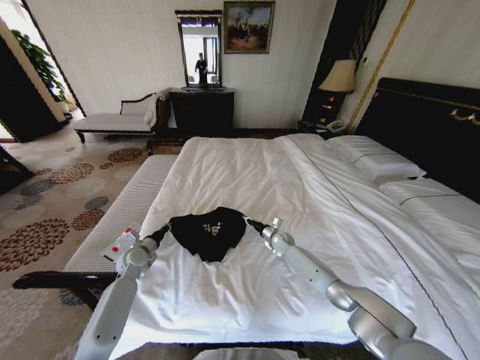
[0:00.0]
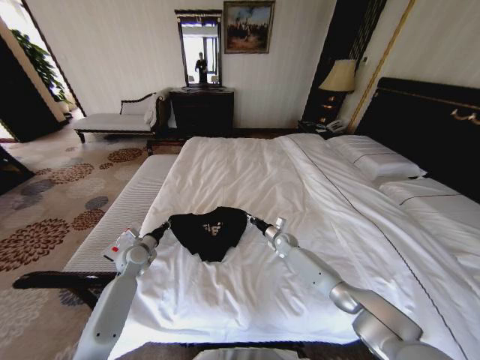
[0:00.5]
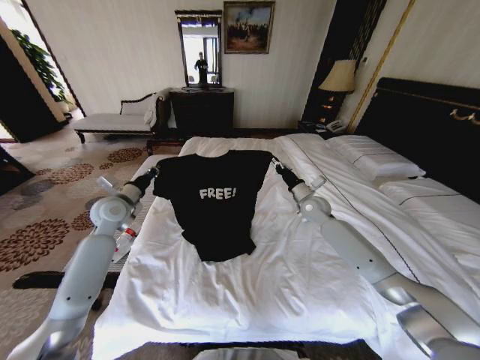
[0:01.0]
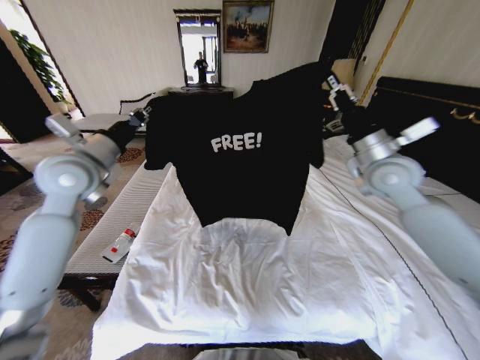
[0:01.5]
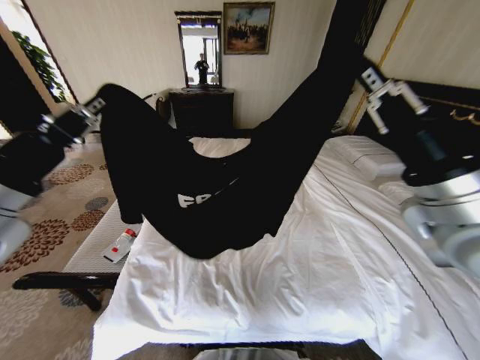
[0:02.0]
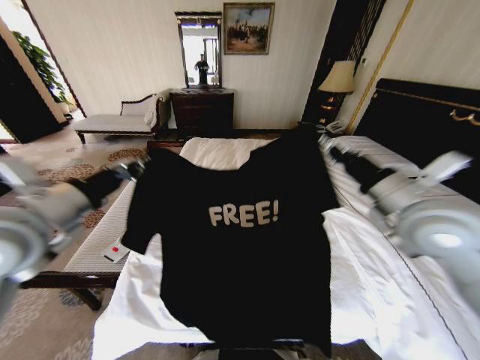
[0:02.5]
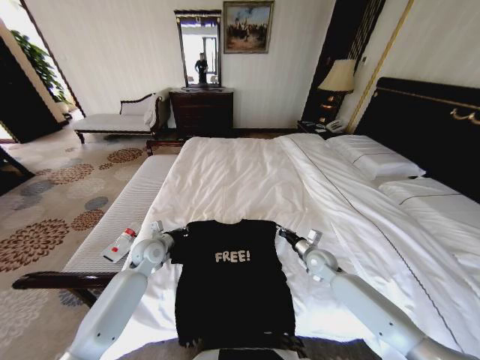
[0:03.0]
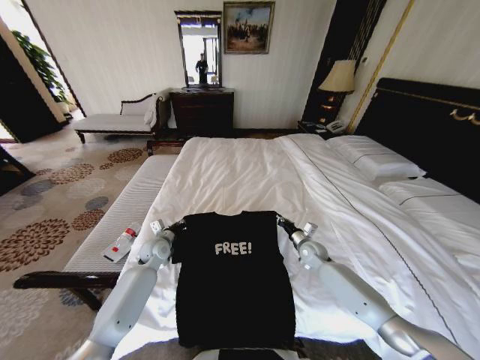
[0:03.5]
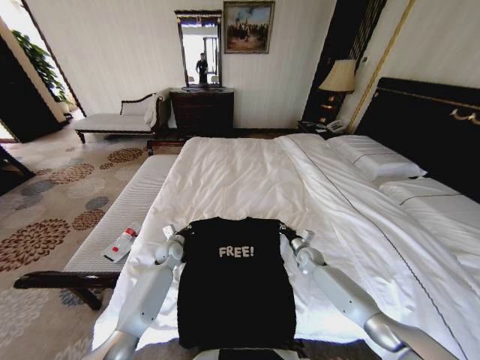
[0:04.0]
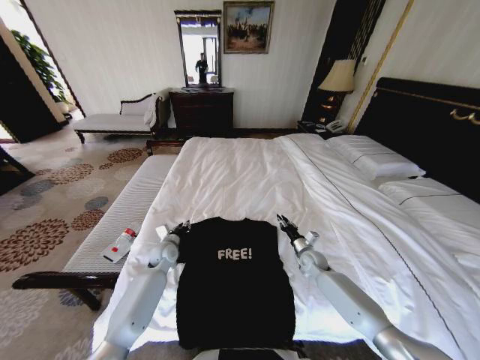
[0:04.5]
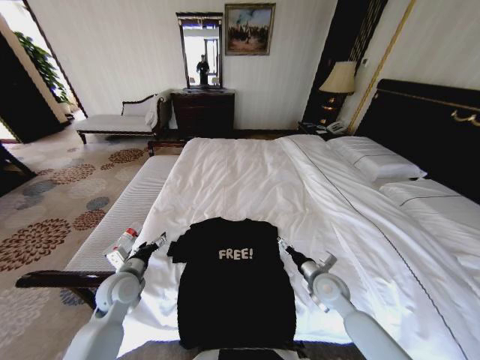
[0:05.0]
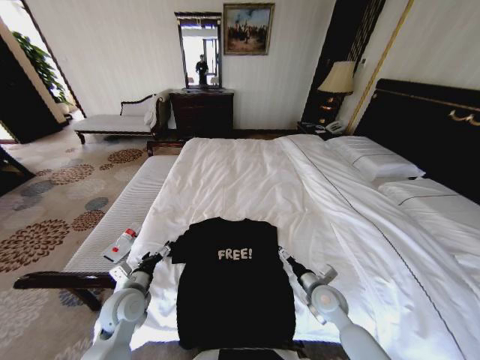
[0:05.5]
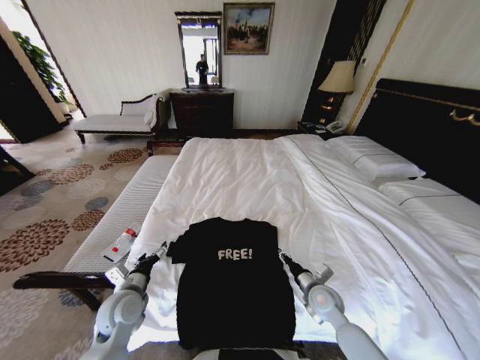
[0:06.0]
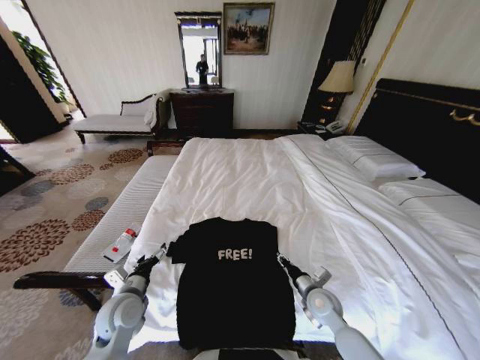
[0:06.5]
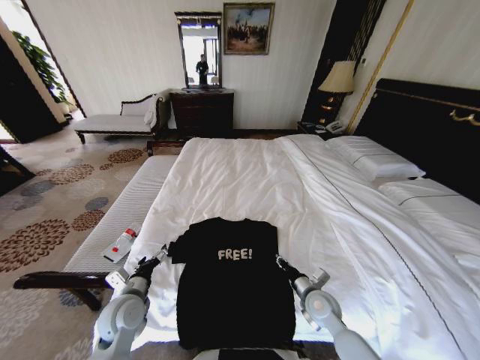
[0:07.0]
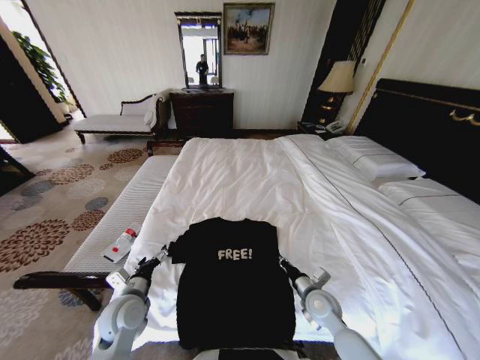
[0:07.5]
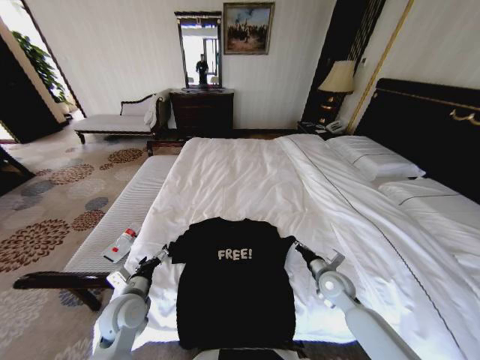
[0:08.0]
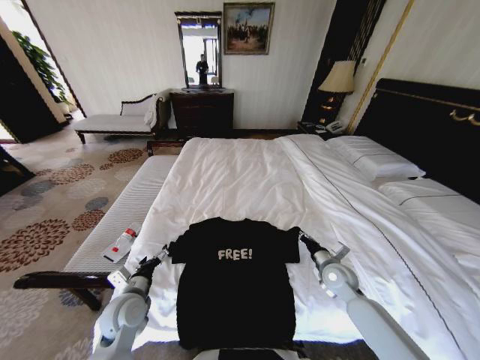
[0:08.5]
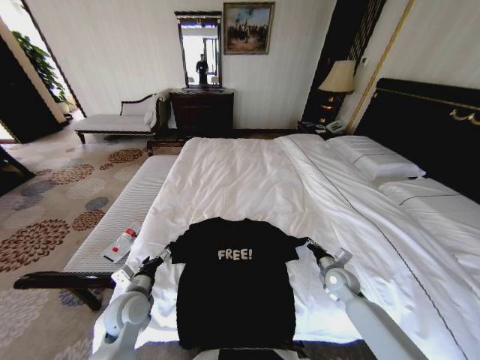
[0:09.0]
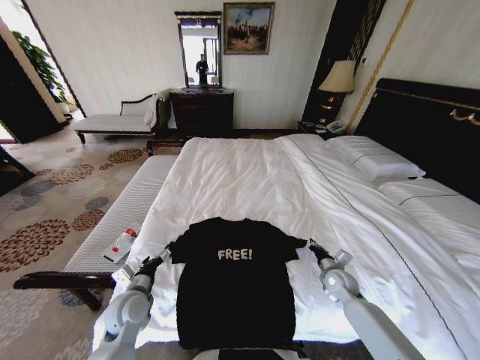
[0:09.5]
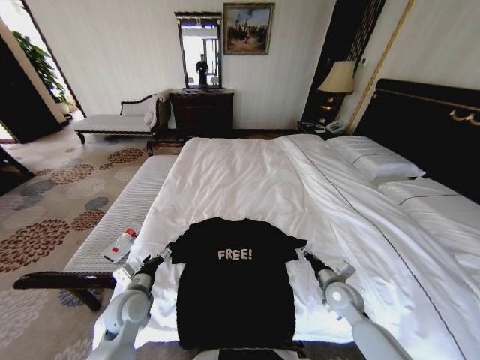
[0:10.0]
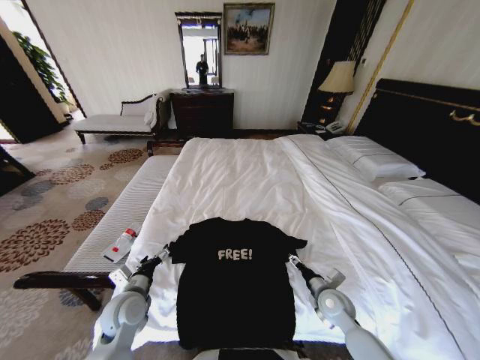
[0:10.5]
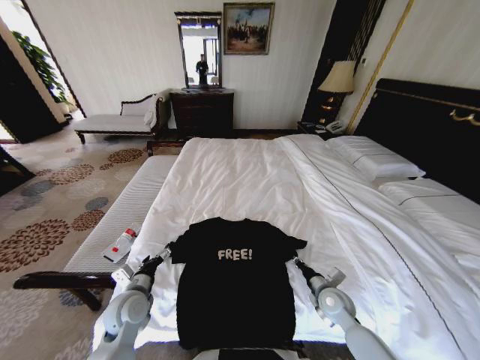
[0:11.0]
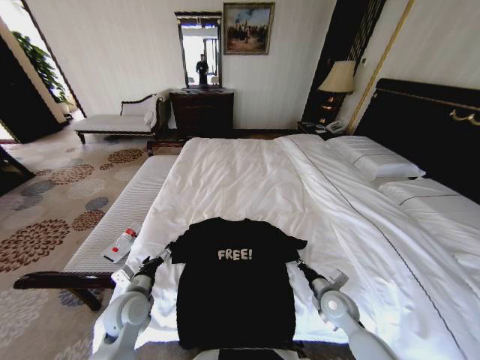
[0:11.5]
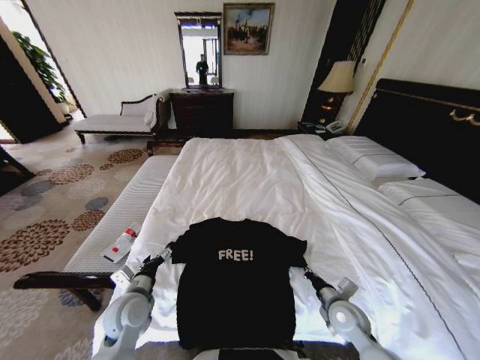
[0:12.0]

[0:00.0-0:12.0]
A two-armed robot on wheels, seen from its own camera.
Task of the whole recording: Fold the clothes on the bed.
0:00.0 to 0:02.0: Both grippers travel together upward and backward, about 50 cm.
0:02.0 to 0:04.0: Both grippers move downward and forward, approximately 50 cm.
0:04.0 to 0:06.0: The left gripper moves backward and upward, some 20 cm, and opens. Meanwhile the right gripper moves backward, about 15 cm, and opens its fingers.
0:06.0 to 0:08.0: The right gripper ends up roughly 5 cm from where it was, and closes.
0:10.0 to 0:12.0: The right gripper travels backward by some 5 cm, and opens and closes again.

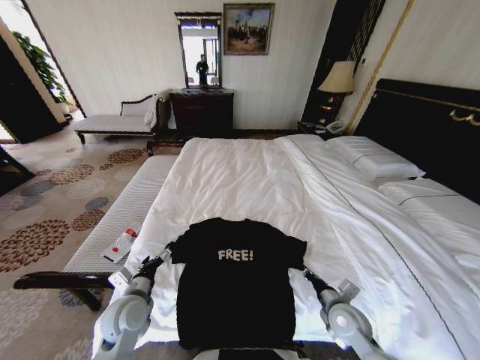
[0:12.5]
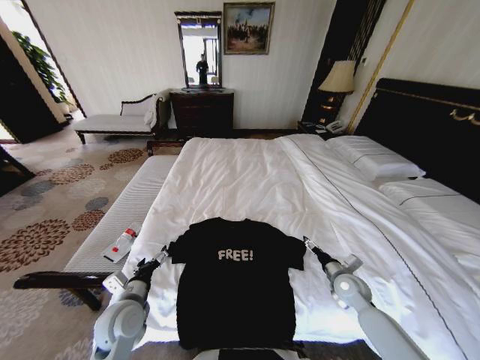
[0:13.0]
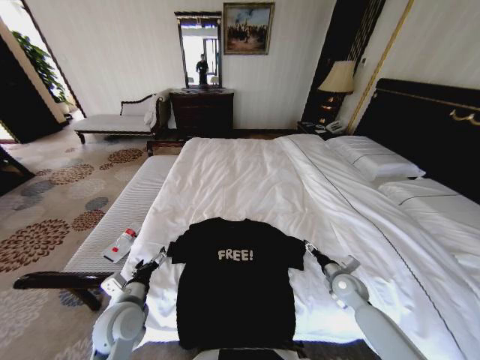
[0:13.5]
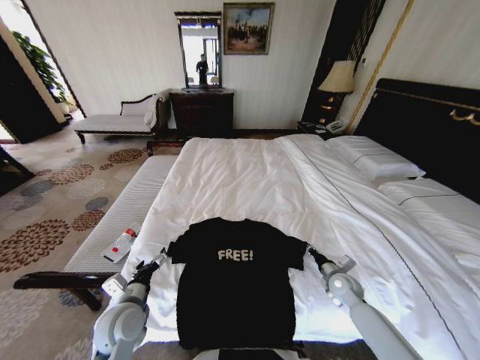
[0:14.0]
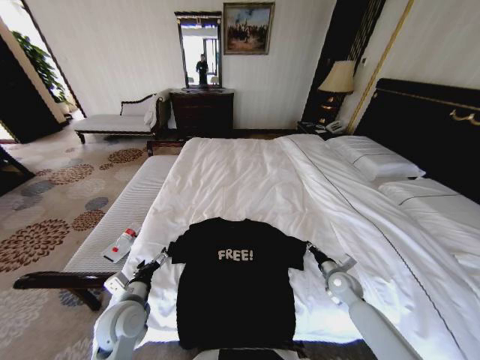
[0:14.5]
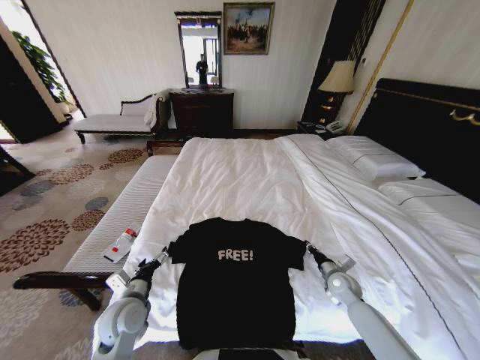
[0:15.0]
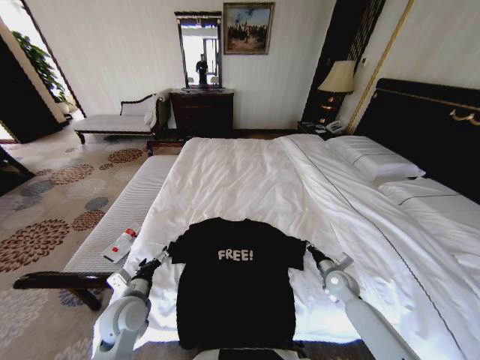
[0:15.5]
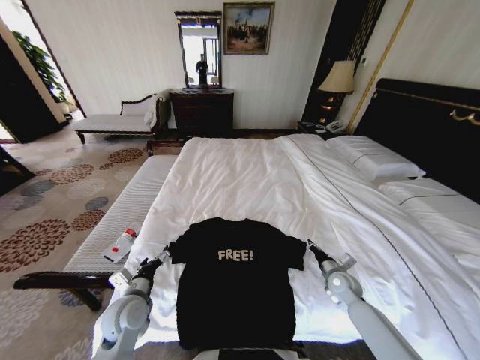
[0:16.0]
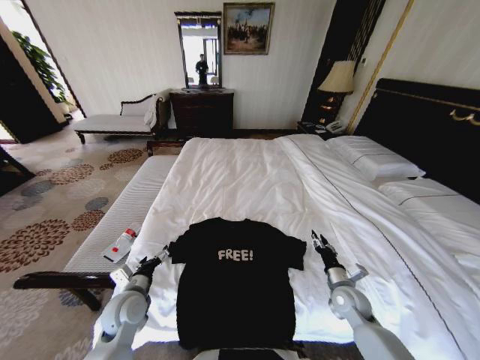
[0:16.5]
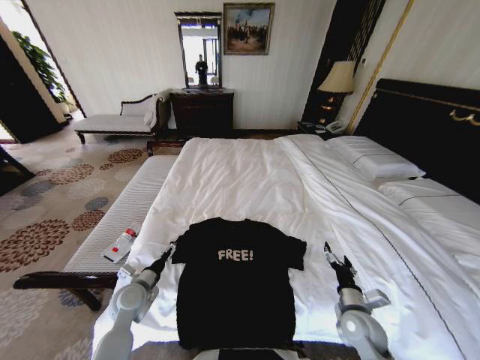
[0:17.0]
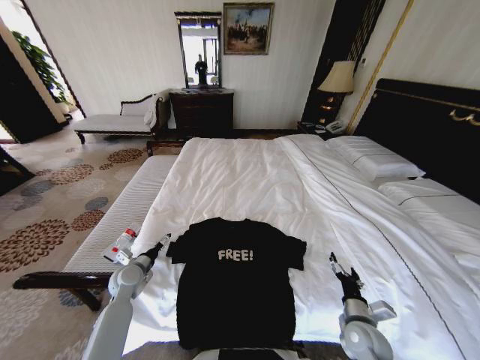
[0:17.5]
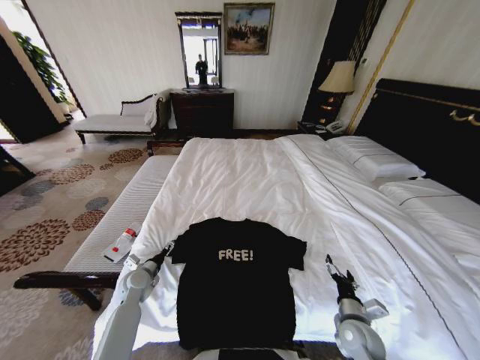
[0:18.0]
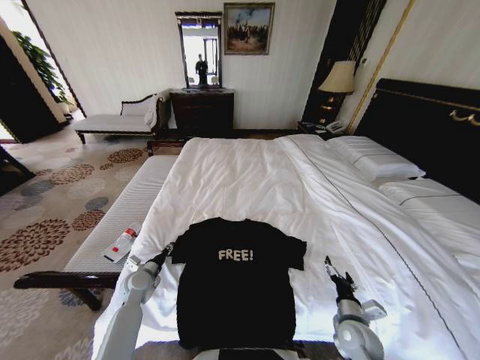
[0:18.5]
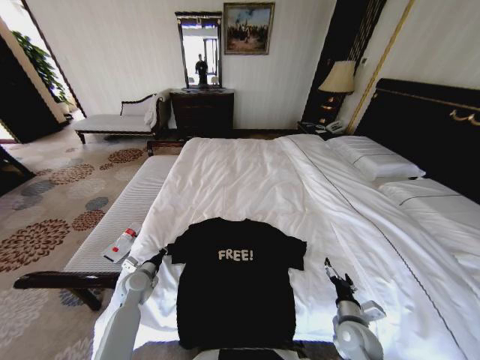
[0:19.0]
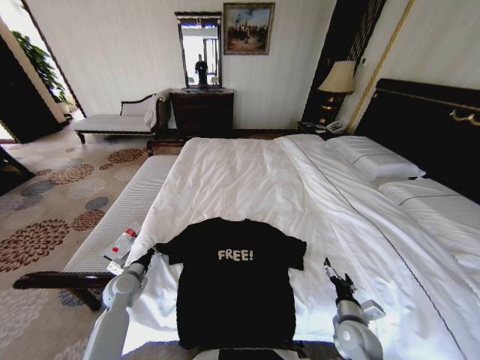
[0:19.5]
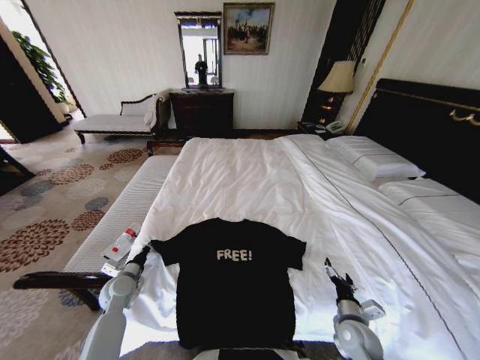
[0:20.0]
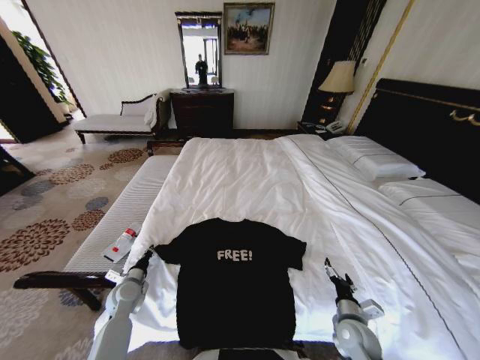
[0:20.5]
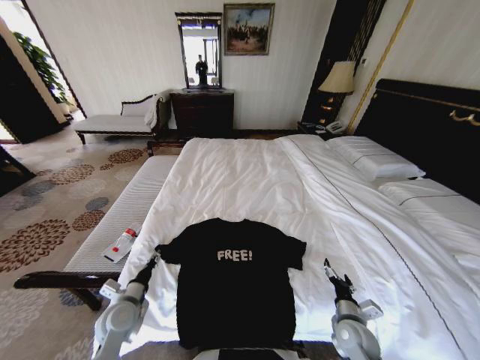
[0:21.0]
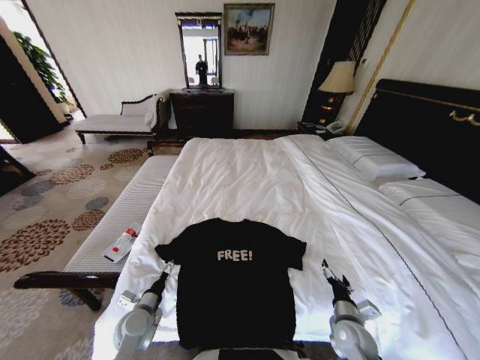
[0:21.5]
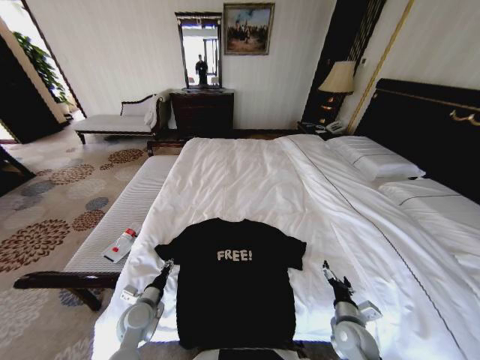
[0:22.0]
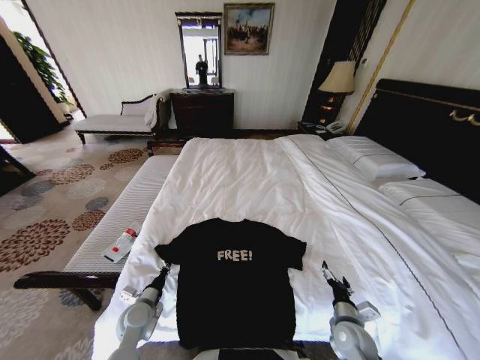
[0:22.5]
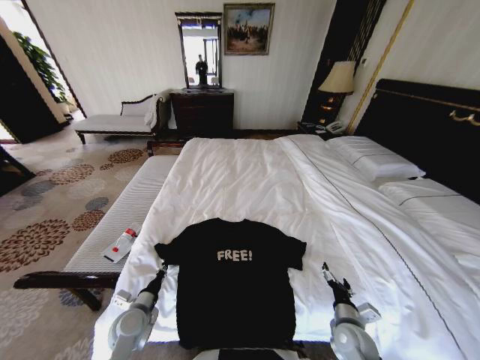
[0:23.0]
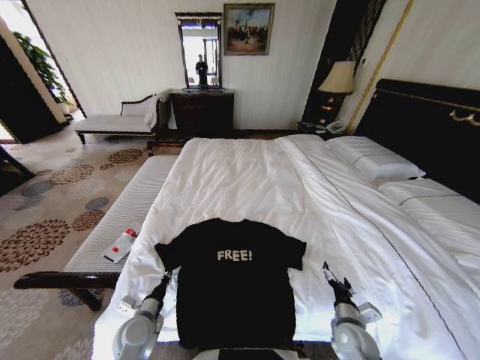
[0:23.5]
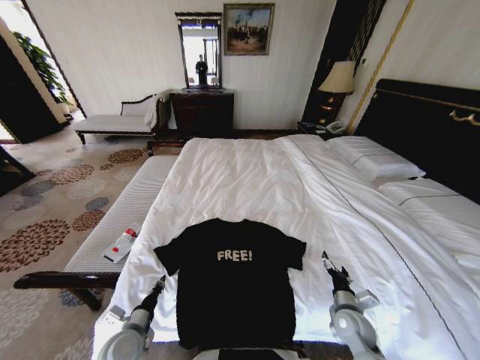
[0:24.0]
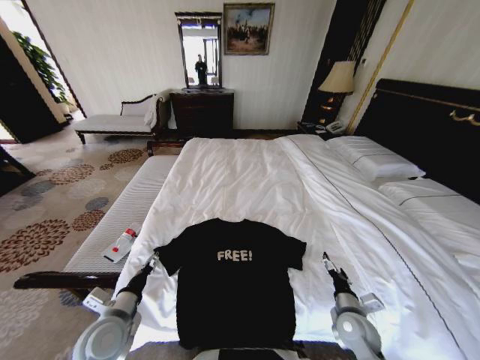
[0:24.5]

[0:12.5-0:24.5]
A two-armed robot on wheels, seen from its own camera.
Task of the whole recording: Fold the clothes on the bed.
0:12.5 to 0:14.5: The right gripper goes roughly 15 cm forward and to the right, and opens and closes again.
0:14.5 to 0:16.5: The right gripper moves backward, approximately 5 cm, and opens its fingers.
0:16.5 to 0:18.5: The left gripper goes roughly 10 cm forward and downward, and closes up, while the right gripper goes roughly 10 cm backward, and opens up.
0:18.5 to 0:20.5: The left gripper closes up.
0:20.5 to 0:22.5: The left gripper goes roughly 10 cm to the right and backward, and opens, then closes once more.
0:22.5 to 0:24.5: The left gripper goes roughly 15 cm upward and backward, and opens.

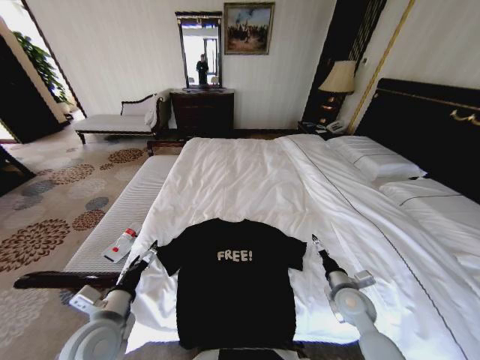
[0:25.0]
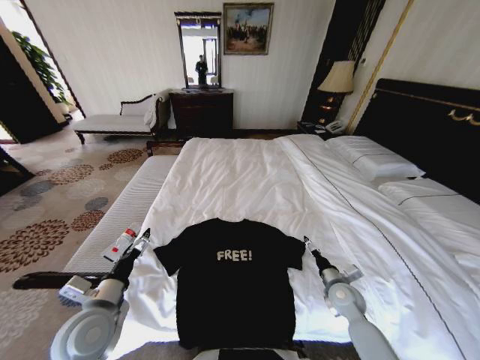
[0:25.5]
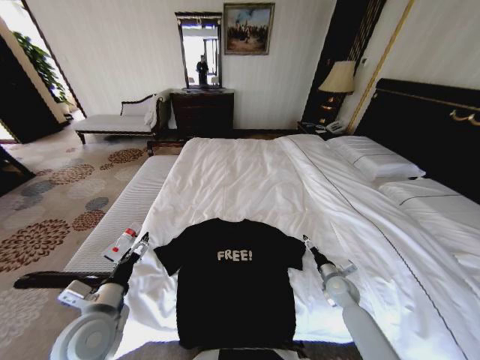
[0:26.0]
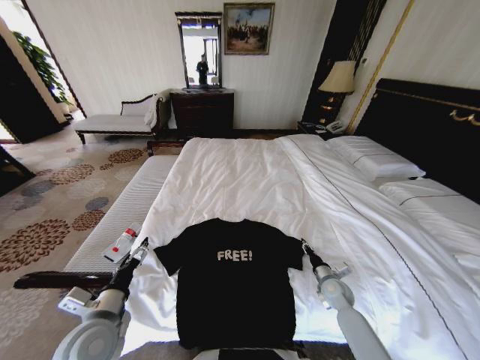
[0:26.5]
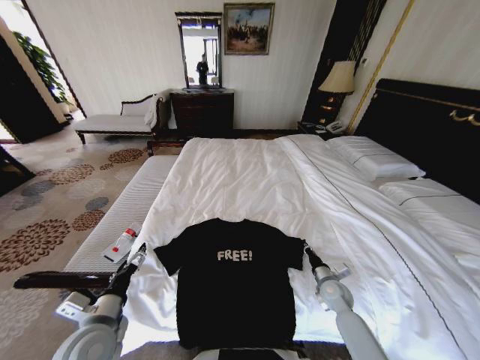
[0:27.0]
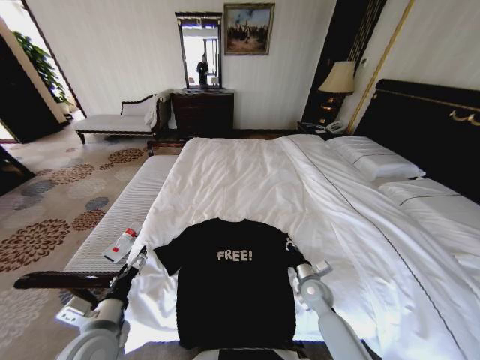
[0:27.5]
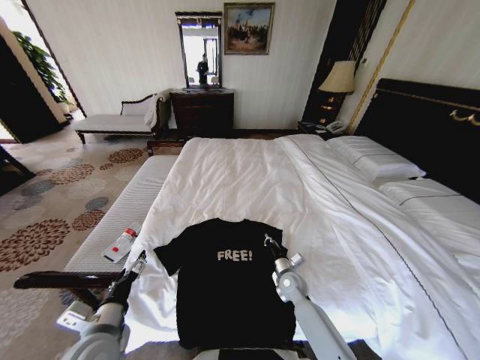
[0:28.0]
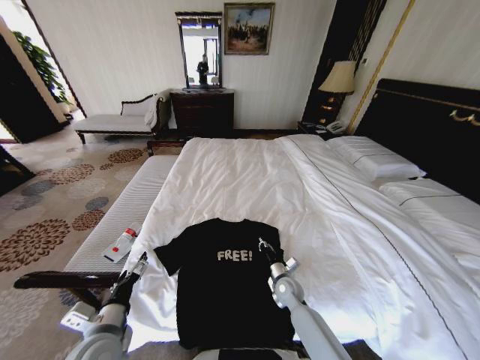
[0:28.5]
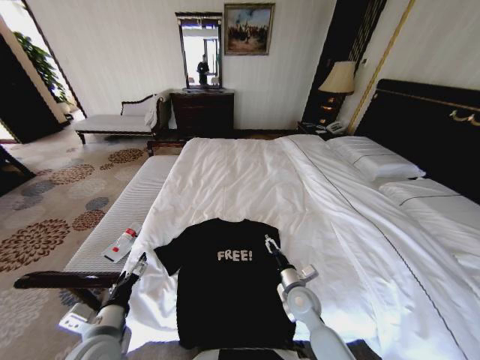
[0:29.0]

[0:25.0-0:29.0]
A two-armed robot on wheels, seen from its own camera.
Task of the whole recording: Fold the clothes on the bed.
0:25.0 to 0:27.0: The right gripper shifts about 10 cm downward, and closes up.
0:27.0 to 0:29.0: The right gripper heads to the left, covering some 15 cm, and opens up.
